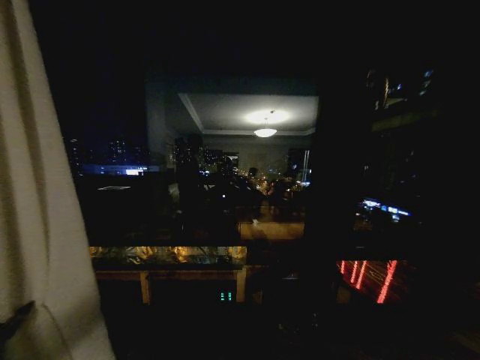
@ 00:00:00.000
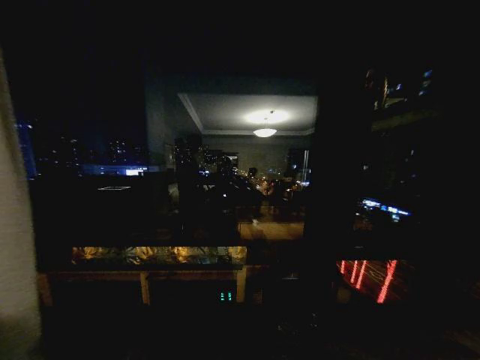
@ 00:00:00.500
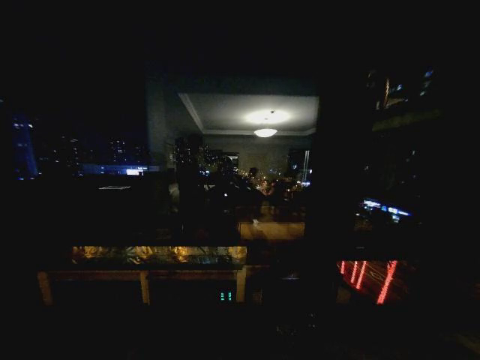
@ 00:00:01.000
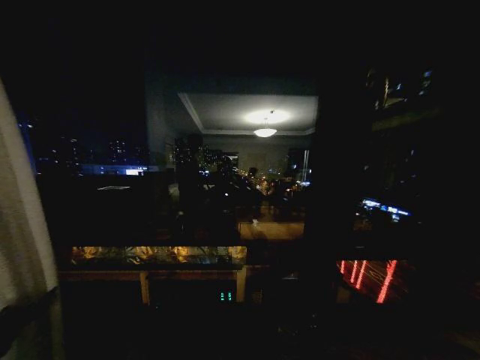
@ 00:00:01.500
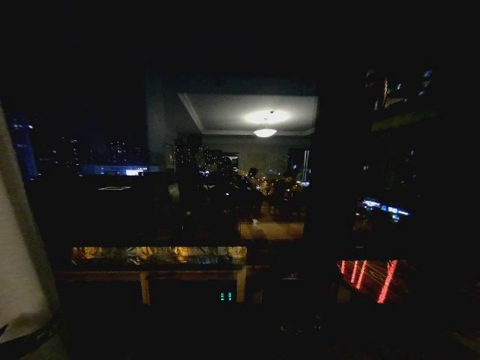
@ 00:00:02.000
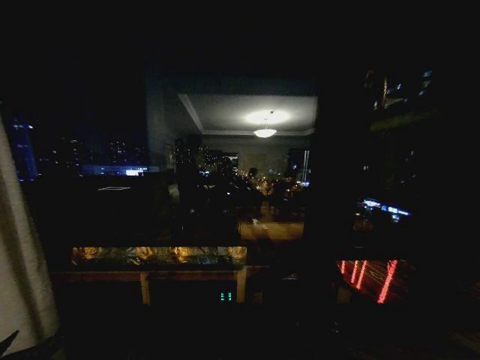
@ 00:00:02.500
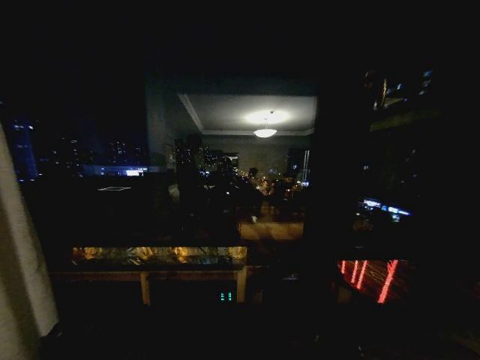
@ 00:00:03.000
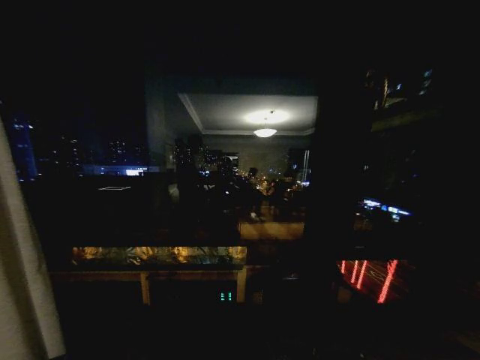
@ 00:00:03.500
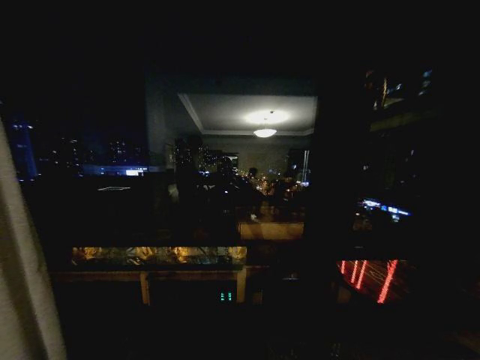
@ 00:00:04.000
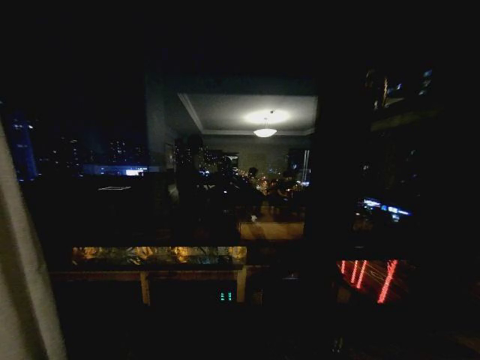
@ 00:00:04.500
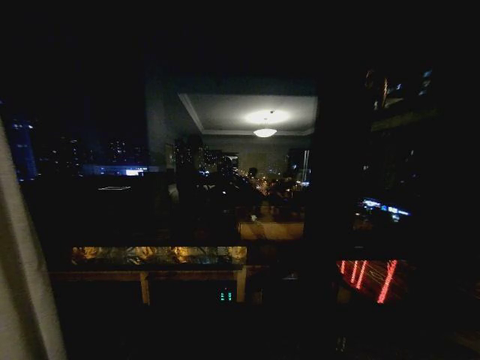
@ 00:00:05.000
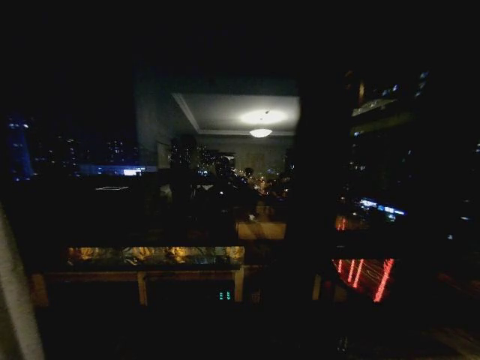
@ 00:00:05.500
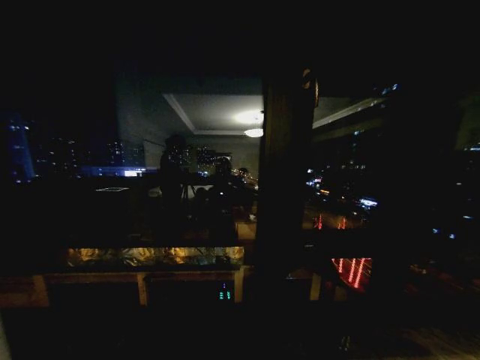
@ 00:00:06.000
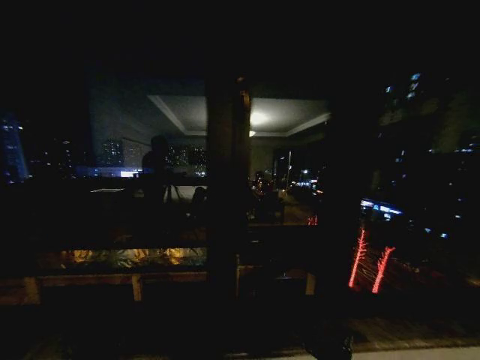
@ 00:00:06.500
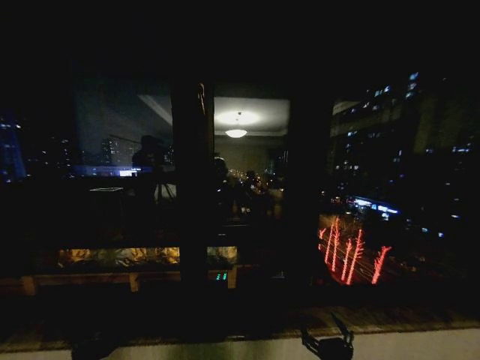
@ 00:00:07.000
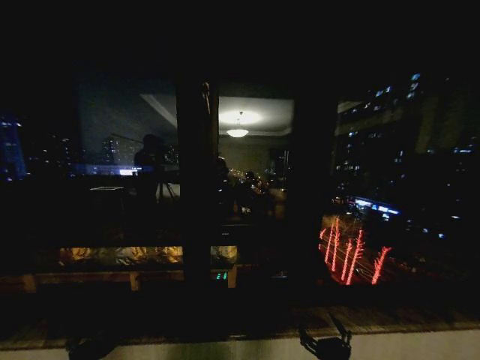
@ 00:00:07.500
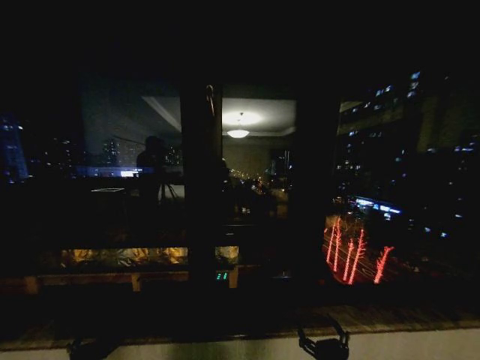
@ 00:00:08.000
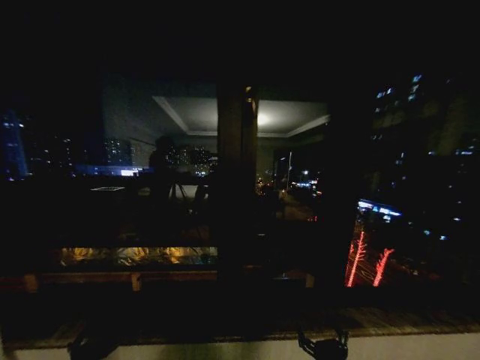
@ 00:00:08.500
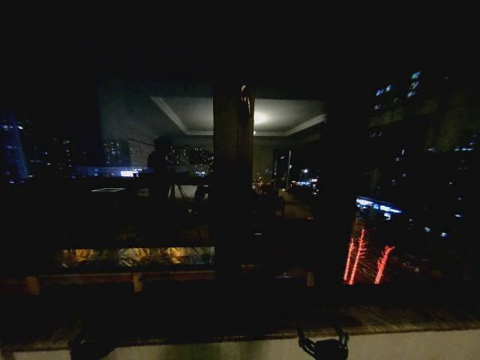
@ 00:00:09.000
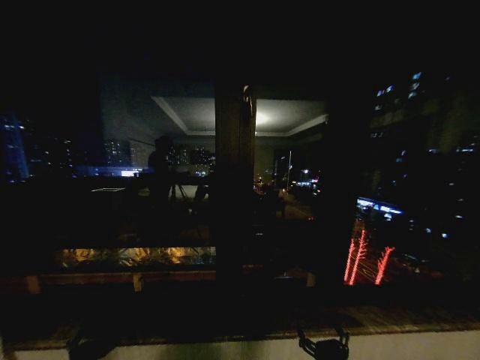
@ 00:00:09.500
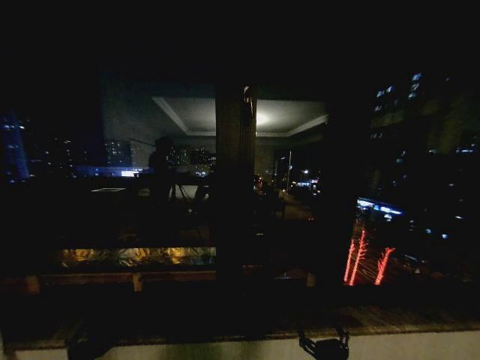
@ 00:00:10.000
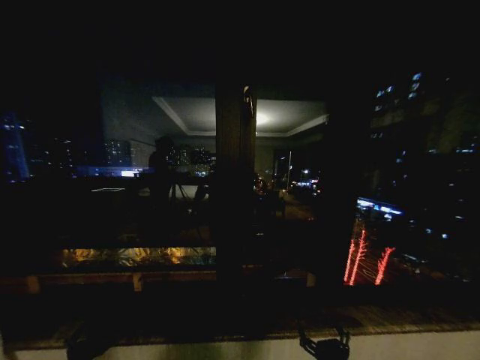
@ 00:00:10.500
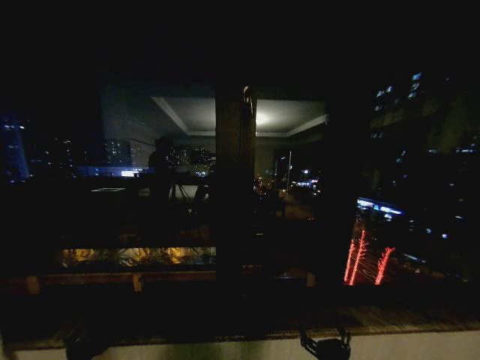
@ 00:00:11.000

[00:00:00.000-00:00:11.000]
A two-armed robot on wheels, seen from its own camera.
Task of the whole recording: Open the curtains by pulling them apart, changing their state from closed to fully open.
00:00:00.000 to 00:00:02.000: The left gripper shifts roughly 20 cm to the right, and opens up.
00:00:02.000 to 00:00:03.500: The left gripper is displaced to the right and downward by about 10 cm.
00:00:05.500 to 00:00:07.500: There are only small adjustments of the grippers.
00:00:07.500 to 00:00:09.000: Both grippers stay put.
00:00:09.000 to 00:00:11.000: The two grippers keep their place.
